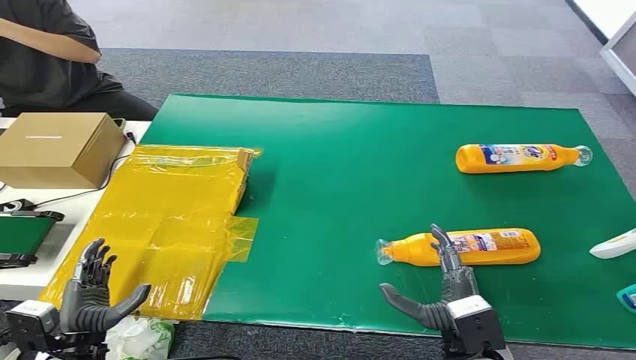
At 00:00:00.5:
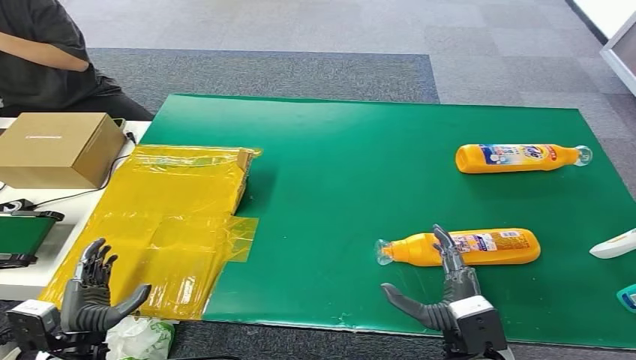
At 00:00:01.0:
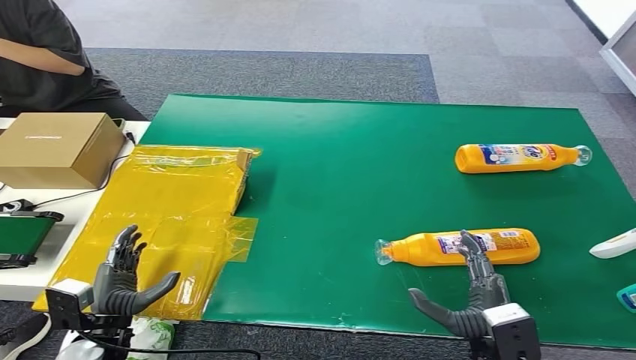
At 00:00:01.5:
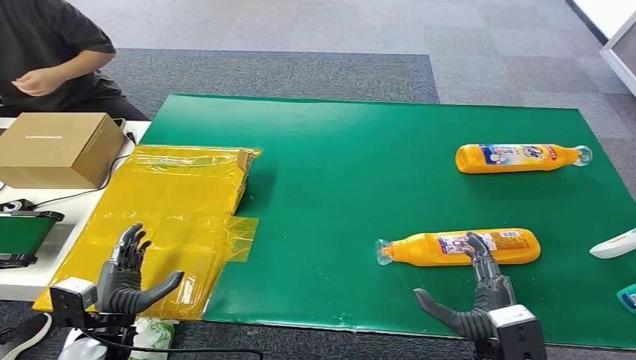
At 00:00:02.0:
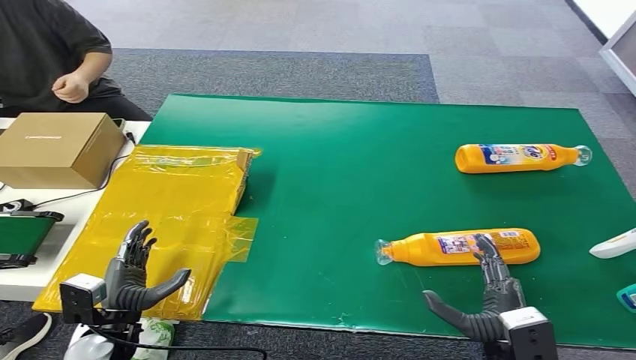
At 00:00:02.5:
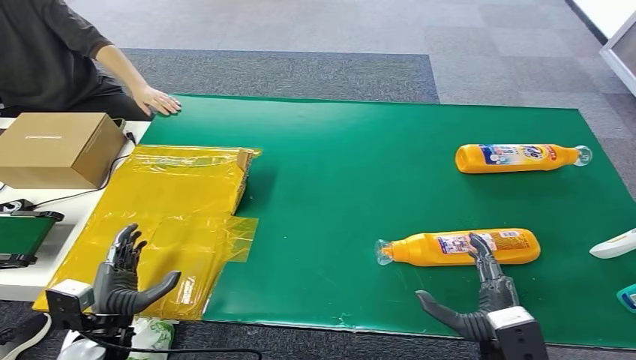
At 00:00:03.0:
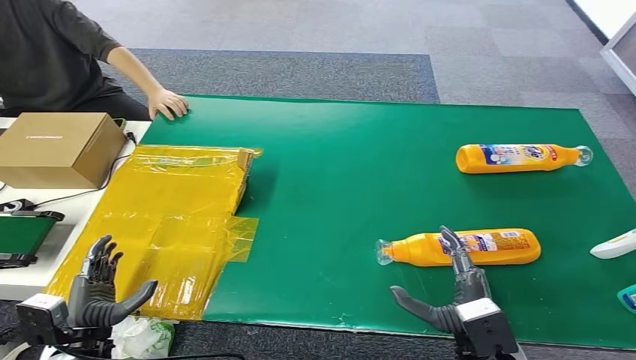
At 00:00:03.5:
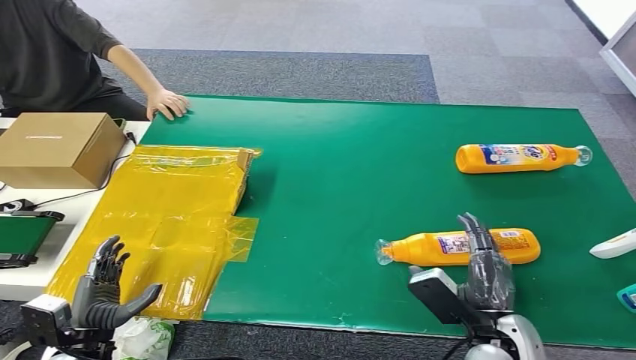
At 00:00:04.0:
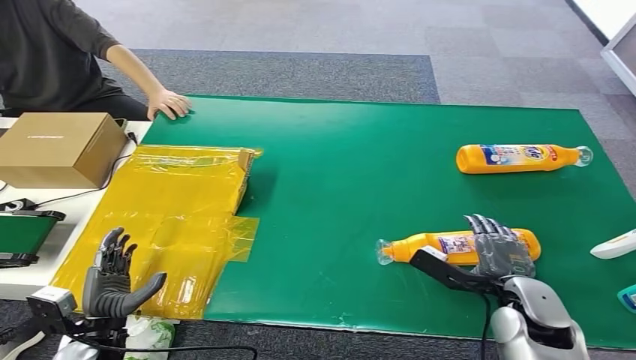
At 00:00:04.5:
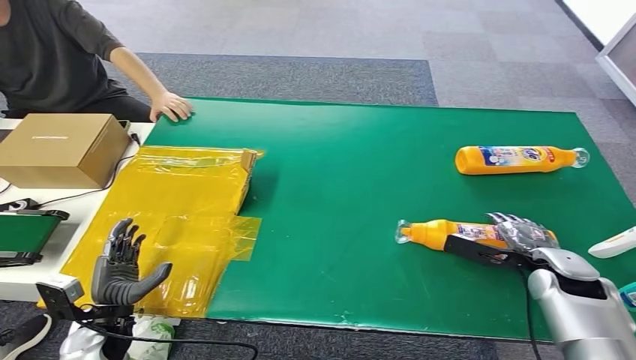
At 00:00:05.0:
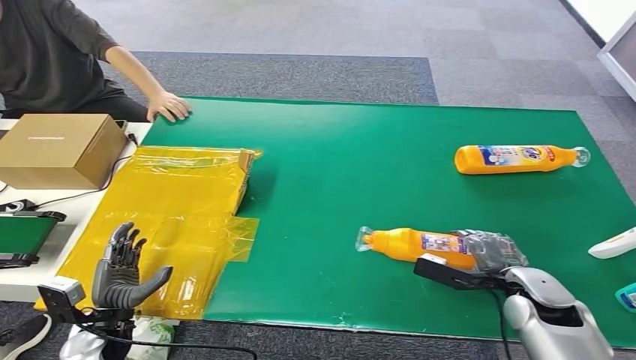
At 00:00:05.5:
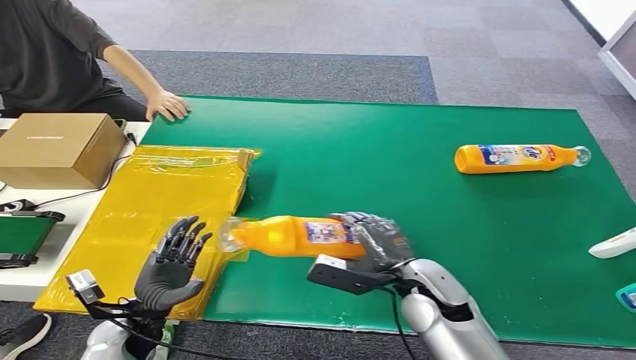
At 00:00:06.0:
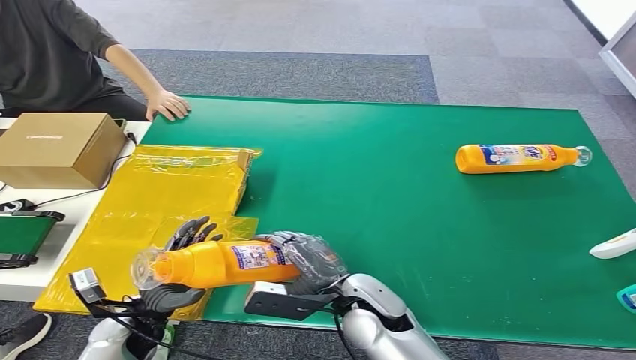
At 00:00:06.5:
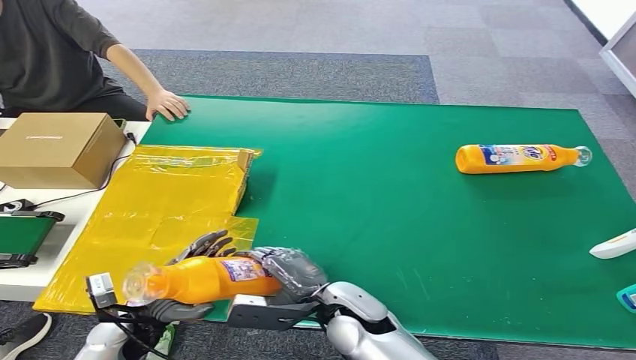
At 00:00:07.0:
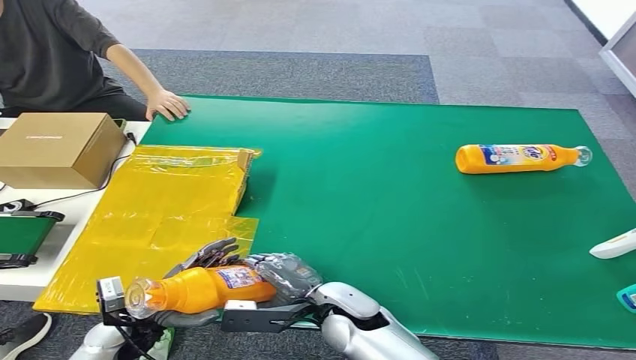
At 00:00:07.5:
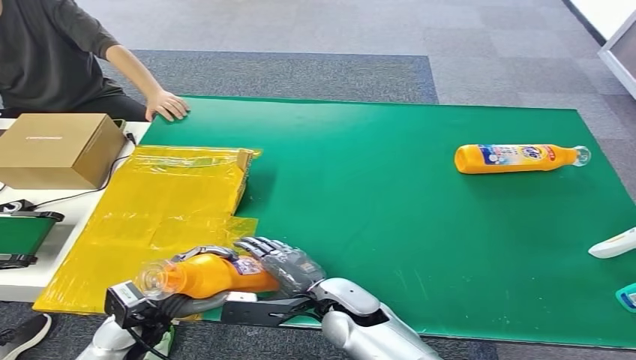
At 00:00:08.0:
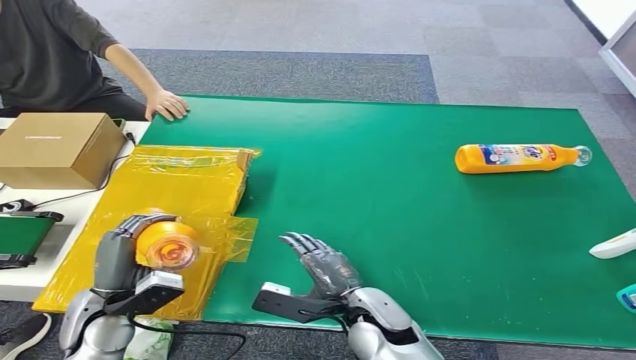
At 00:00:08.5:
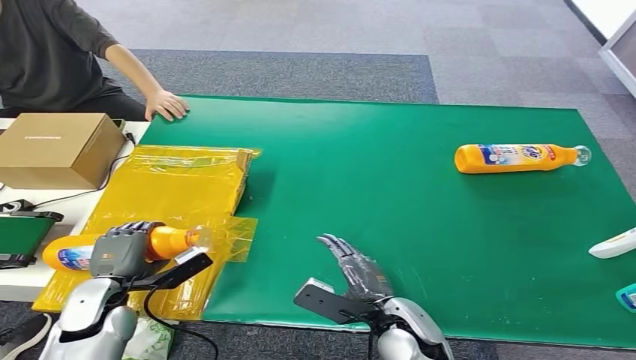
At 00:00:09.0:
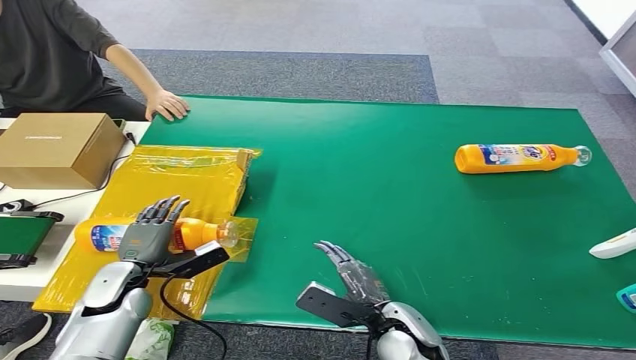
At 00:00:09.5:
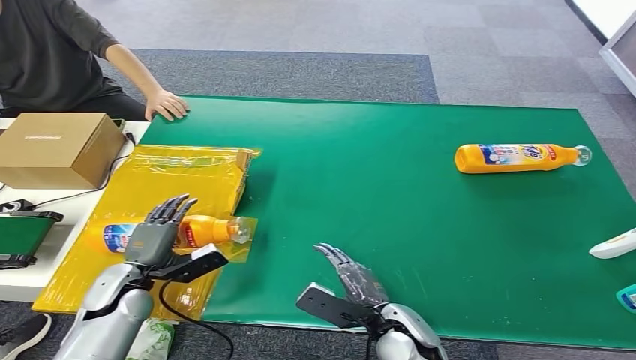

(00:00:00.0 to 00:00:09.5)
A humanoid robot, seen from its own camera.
Step, 00:00:00.0 - 00:00:05.0: Pick up the bottle from the table.
Step, 00:00:05.5 - 00:00:09.5: Turn the bottle to the front side.
00:00:02.0 - 00:00:04.0: The right hand travels forward by some 10 cm.
00:00:05.5 - 00:00:07.5: The right hand goes approximately 10 cm to the left.
00:00:07.5 - 00:00:09.5: The right hand moves to the right, some 10 cm. The left hand heads forward, covering roughly 5 cm.
